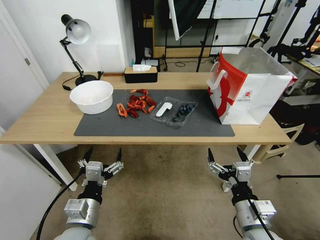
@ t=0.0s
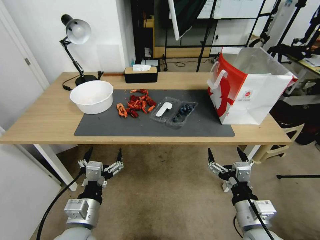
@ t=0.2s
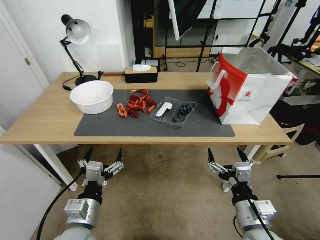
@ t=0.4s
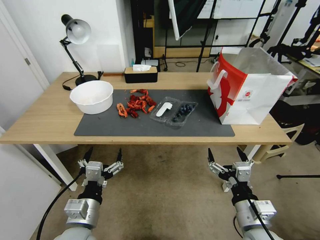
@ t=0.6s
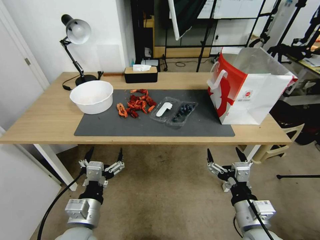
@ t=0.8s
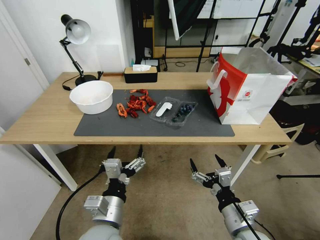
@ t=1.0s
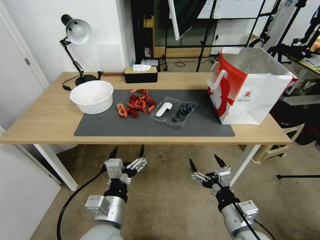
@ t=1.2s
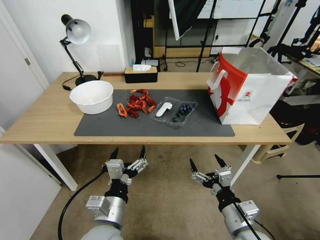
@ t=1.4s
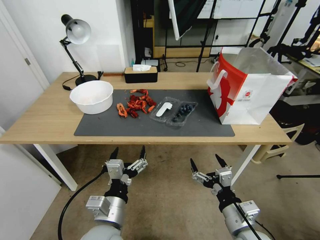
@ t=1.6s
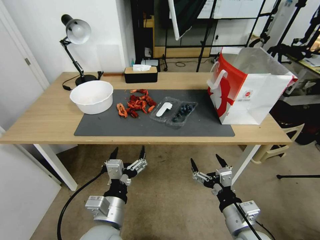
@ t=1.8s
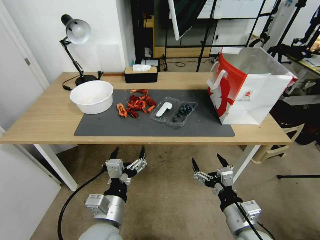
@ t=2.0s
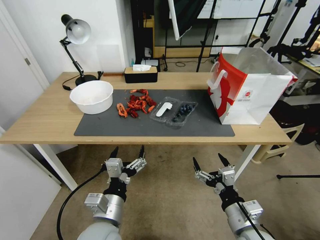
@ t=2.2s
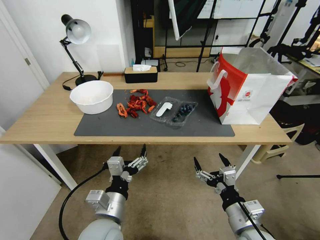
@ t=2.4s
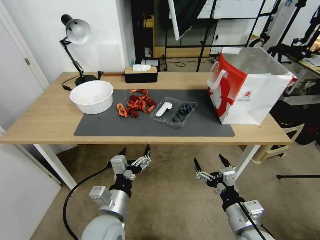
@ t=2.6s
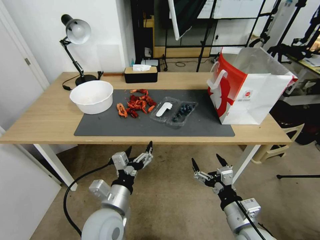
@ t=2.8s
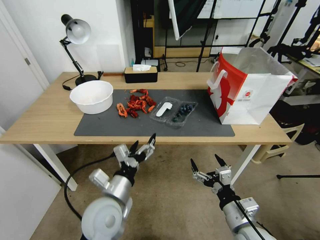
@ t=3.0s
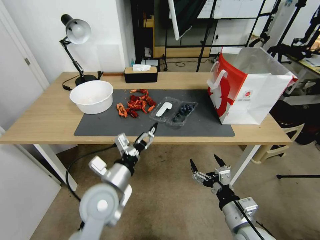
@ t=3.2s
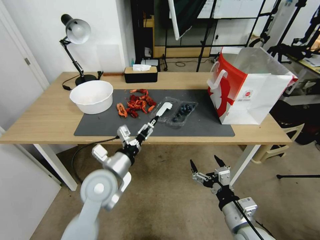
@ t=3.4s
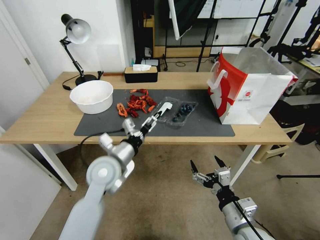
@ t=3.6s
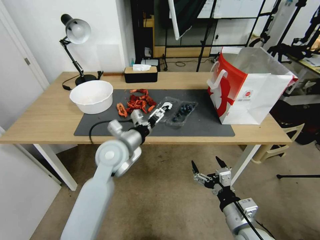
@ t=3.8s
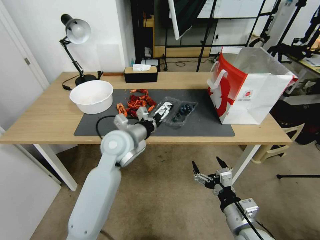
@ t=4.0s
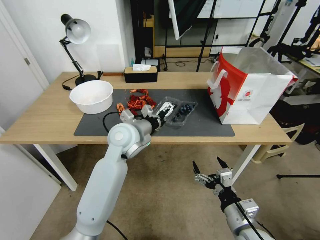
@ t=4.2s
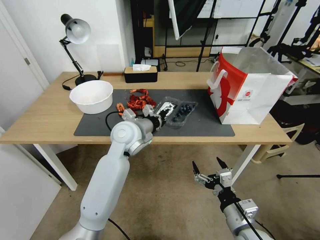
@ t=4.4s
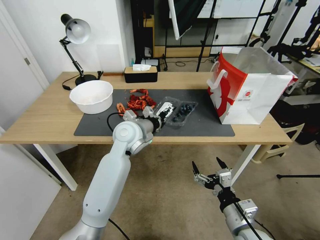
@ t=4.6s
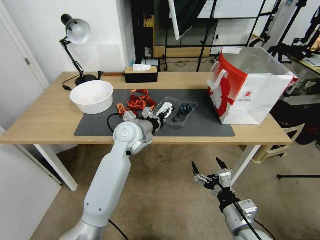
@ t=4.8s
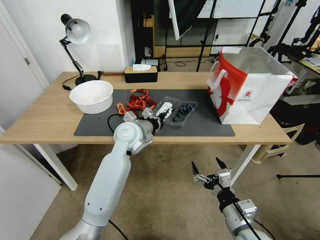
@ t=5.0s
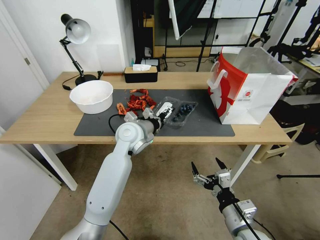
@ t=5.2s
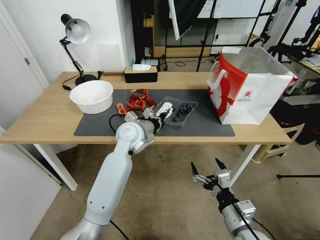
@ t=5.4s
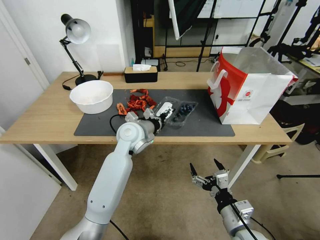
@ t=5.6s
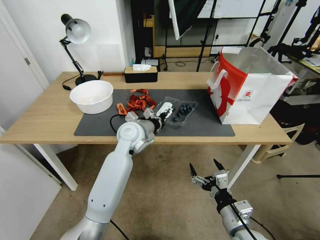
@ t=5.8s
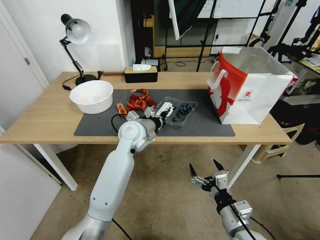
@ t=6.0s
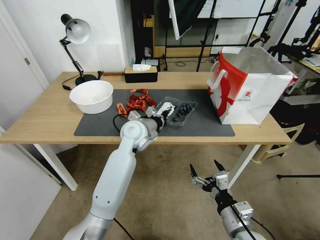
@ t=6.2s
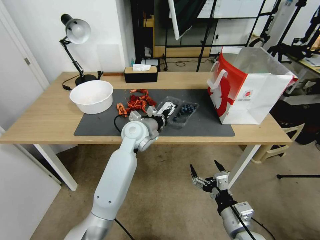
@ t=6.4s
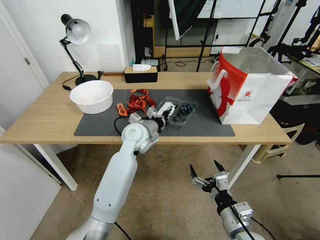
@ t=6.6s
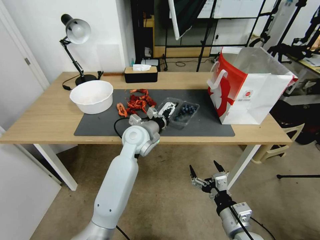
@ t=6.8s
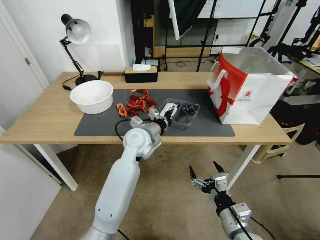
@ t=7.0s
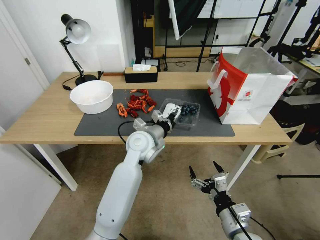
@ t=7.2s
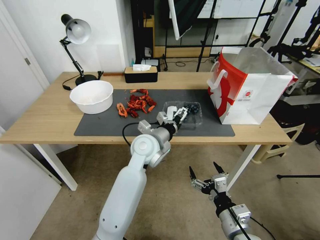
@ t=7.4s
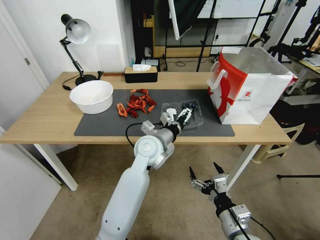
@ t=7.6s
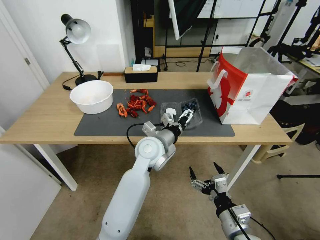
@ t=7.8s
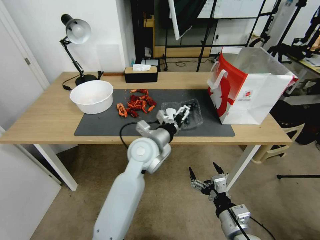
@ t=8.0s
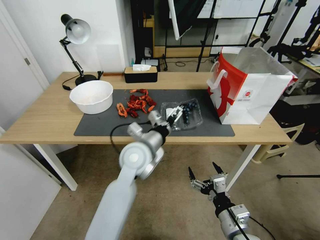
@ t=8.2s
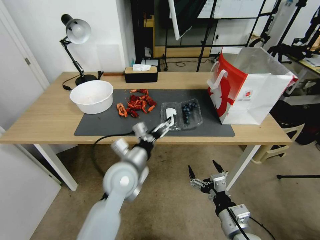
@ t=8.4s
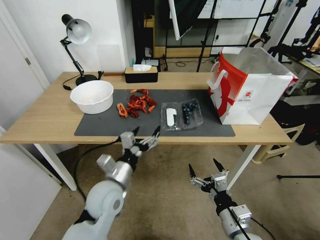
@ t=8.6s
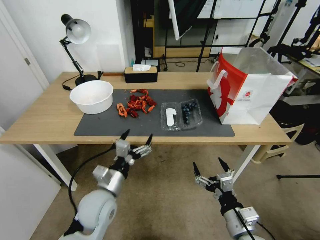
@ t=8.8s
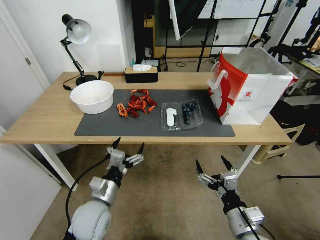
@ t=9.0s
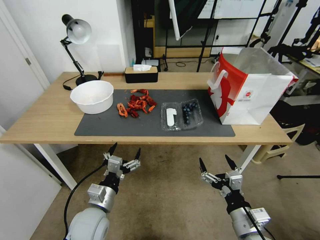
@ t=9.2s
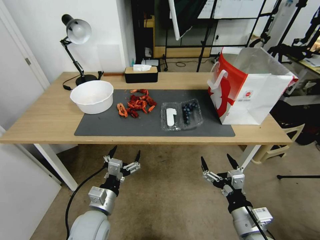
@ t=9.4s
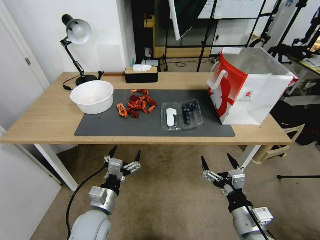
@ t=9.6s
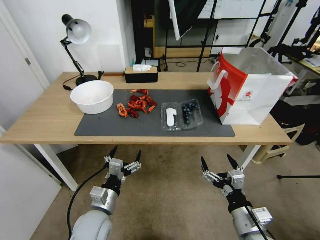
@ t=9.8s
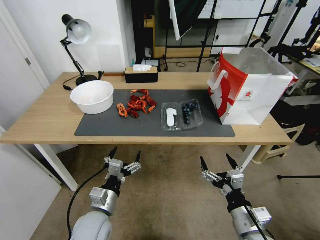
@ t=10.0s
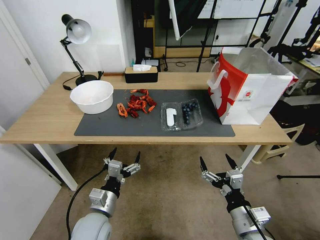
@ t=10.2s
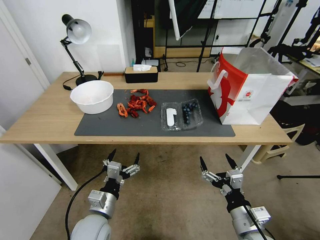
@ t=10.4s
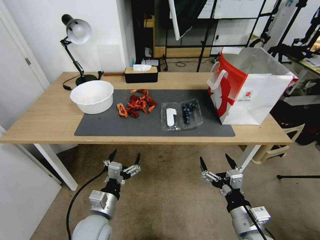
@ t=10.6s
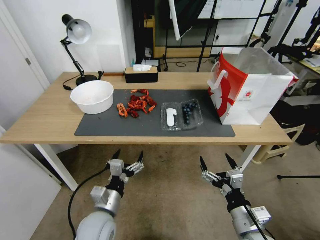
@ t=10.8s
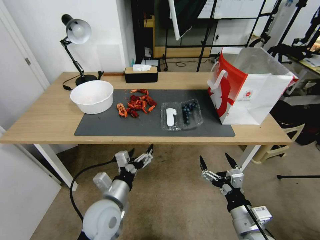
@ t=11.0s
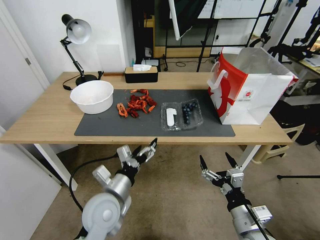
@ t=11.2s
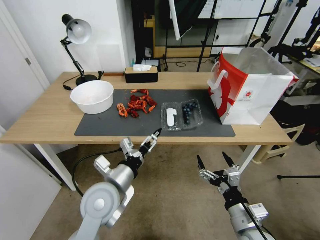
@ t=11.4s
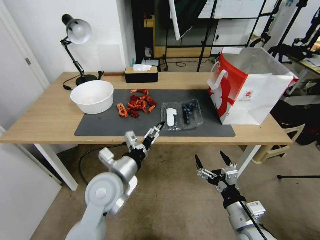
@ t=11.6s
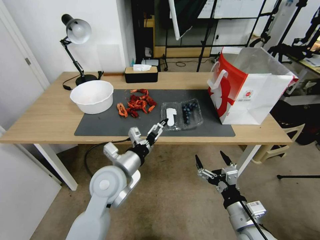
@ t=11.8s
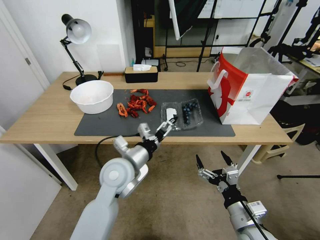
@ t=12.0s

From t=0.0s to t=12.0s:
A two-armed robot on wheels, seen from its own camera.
Task of the whole recording: Close the takeout container lid, then place the container into the takeout bag.
From t=1.6s to t=3.0s: The left gripper is displaced forward by roughly 5 cm.
From t=3.0s to t=4.4s: The left gripper travels forward by about 20 cm.
From t=4.4s to t=6.0s: There are only small adjustments of the grippers.
From t=6.0s to t=7.6s: The left gripper is displaced to the right and backward by approximately 10 cm.
From t=7.6s to t=9.0s: The left gripper goes some 25 cm backward, to the left and downward.
From t=9.0s to t=10.4s: The grippers stay close to where they were, moving slightly.
From t=10.4s to t=12.0s: The left gripper travels upward, forward and to the right by about 20 cm.

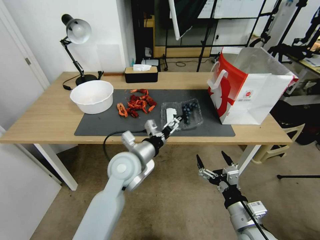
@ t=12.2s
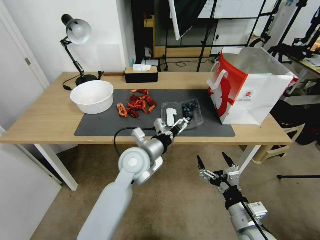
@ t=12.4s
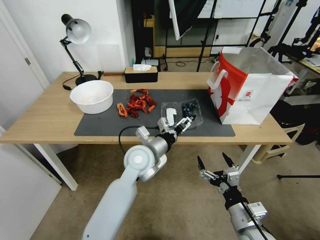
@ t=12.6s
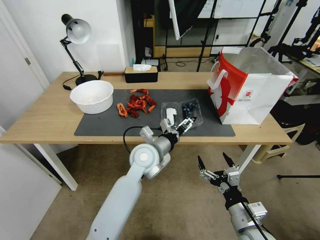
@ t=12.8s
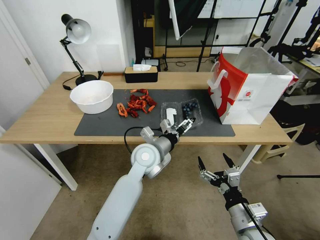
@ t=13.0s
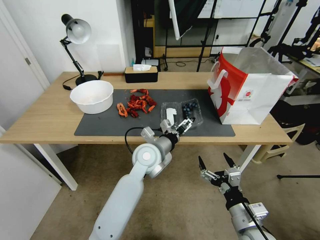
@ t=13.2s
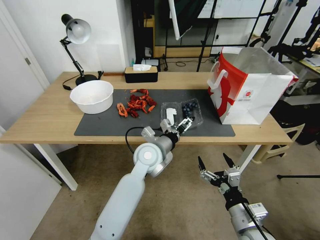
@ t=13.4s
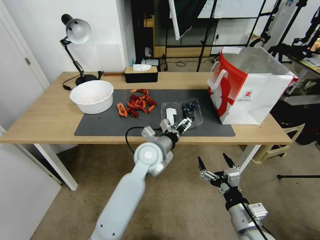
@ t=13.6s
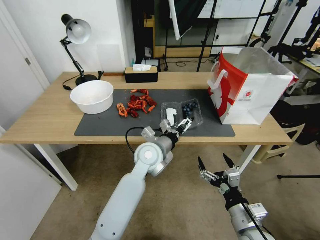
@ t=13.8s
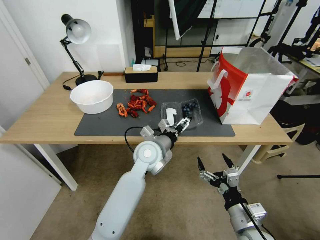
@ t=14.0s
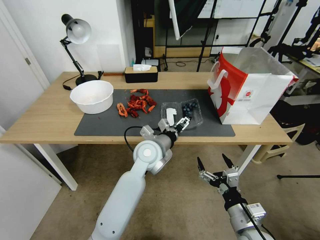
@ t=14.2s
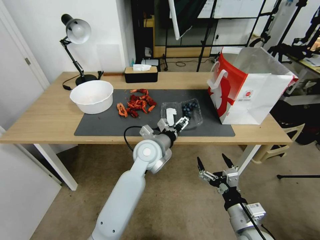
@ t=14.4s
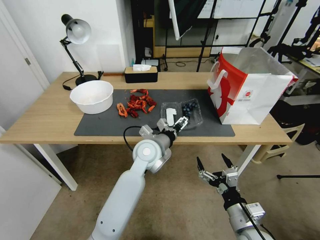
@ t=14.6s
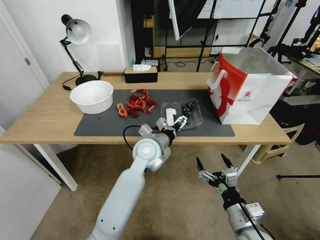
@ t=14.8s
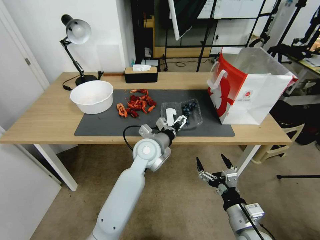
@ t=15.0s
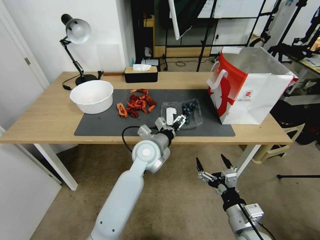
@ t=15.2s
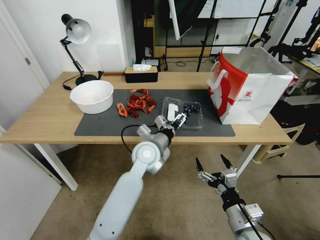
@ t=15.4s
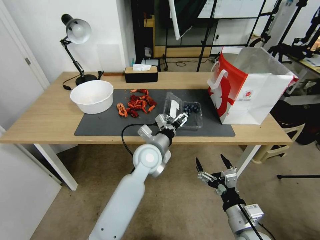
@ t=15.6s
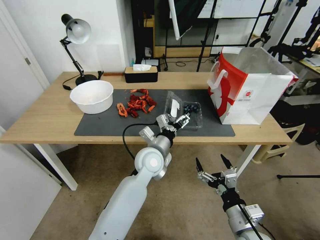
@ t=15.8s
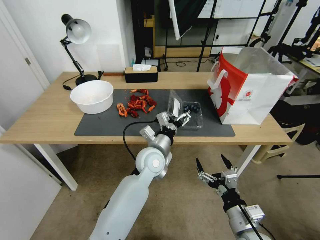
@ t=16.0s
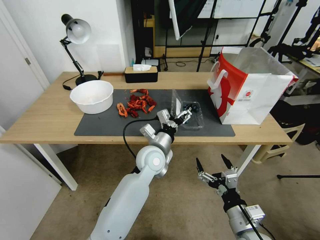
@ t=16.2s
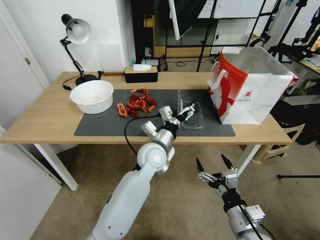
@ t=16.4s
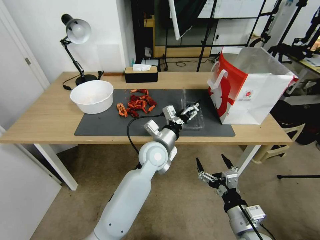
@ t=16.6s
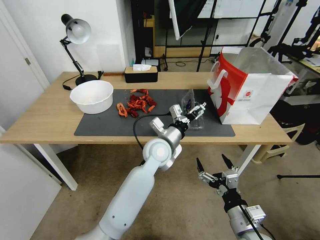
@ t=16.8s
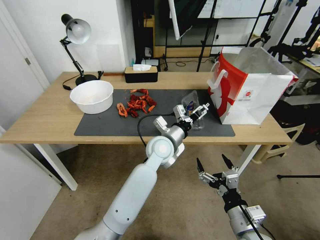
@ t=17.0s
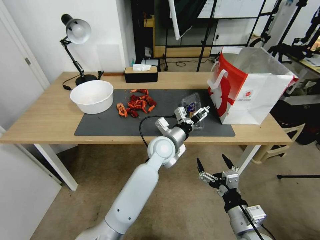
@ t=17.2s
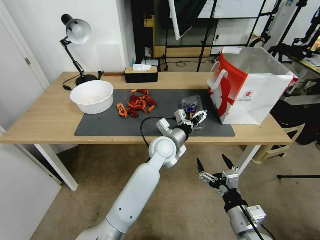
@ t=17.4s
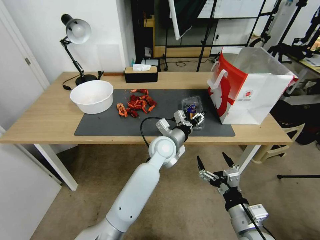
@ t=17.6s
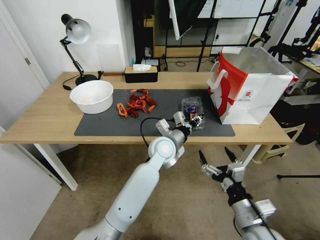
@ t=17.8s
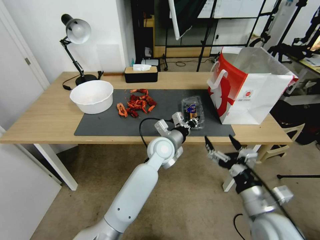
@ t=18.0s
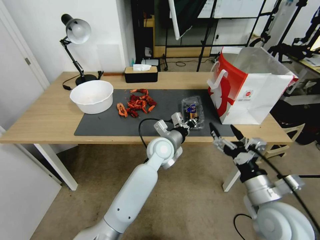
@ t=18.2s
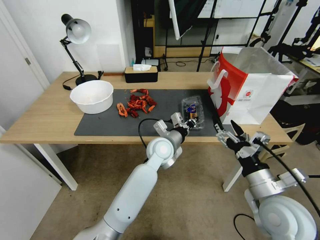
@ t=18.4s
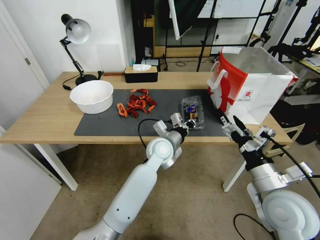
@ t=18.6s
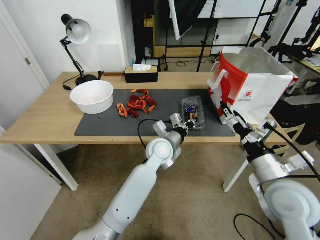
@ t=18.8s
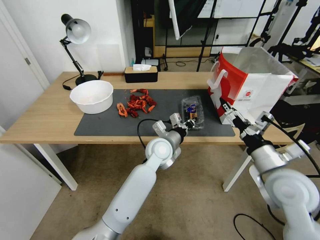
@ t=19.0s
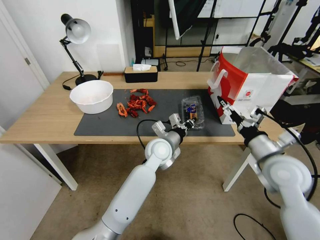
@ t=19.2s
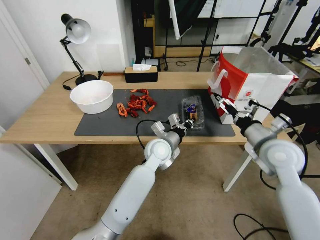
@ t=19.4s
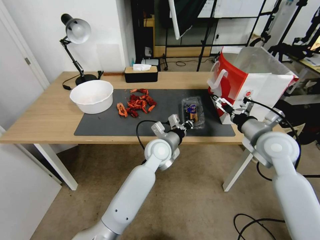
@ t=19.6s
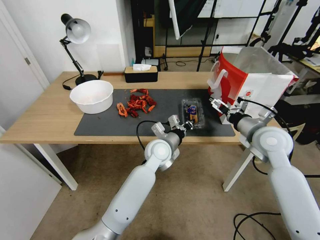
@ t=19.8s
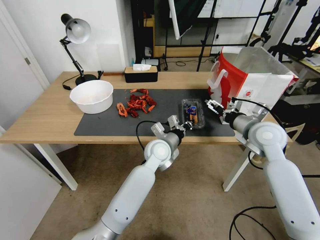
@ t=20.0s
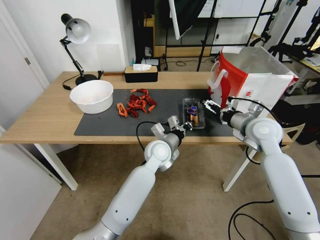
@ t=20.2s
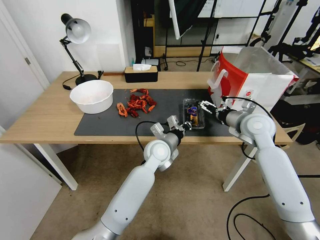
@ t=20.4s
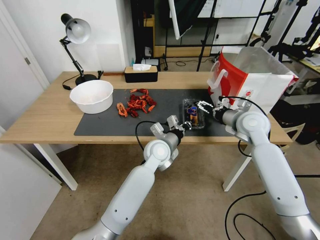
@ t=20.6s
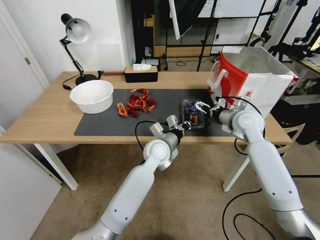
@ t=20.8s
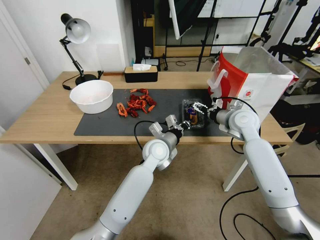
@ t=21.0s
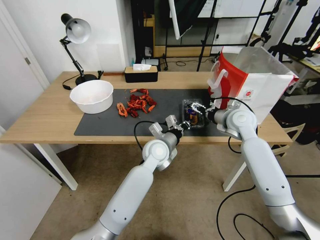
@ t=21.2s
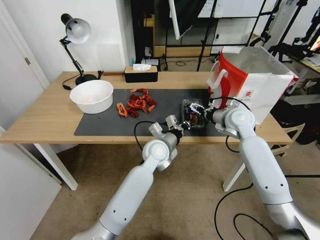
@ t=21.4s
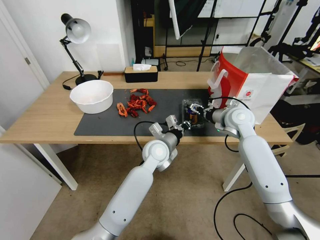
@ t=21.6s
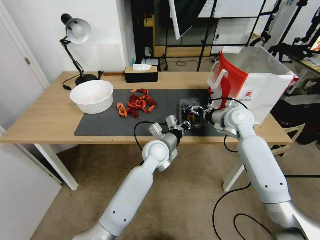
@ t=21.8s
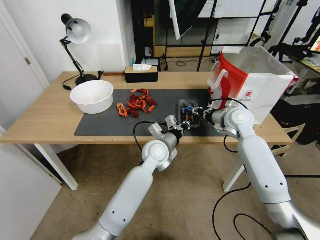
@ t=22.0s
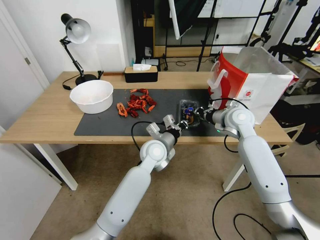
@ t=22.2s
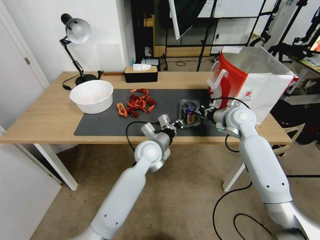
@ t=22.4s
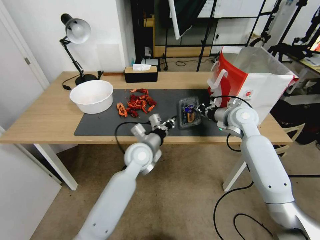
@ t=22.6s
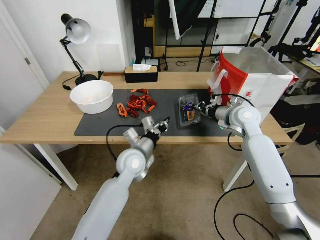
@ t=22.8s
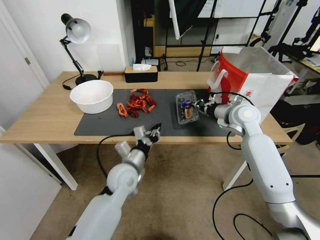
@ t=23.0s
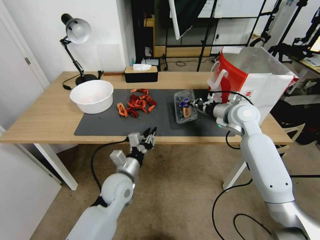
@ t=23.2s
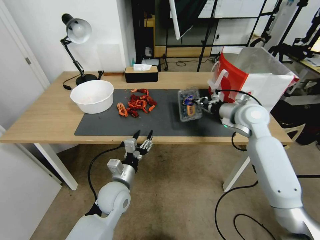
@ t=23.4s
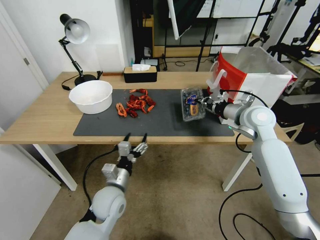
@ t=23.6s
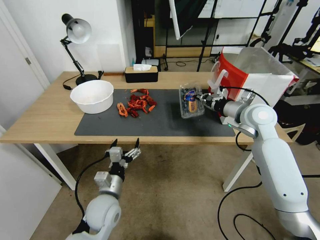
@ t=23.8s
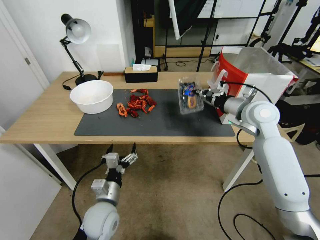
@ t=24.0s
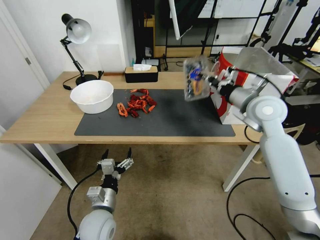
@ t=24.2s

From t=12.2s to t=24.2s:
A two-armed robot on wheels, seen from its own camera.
Task of the whole recording: Close the takeout container lid, then place the container into the takeout bag.
From t=12.2s to t=13.8s: The left gripper travels to the right and forward by roughly 10 cm.
From t=13.8s to t=15.2s: Neither gripper changes place.
From t=16.6s to t=18.2s: The right gripper shifts about 10 cm upward. The left gripper closes up.
From t=18.2s to t=19.8s: The right gripper shifts approximately 20 cm forward.
From t=19.8s to t=21.2s: The right gripper shifts approximately 10 cm forward.
From t=21.2s to t=22.6s: The left gripper shifts approximately 5 cm to the left; the right gripper closes up.
From t=22.6s to t=24.2s: The right gripper heads upward, covering about 10 cm, while the left gripper travels backward, to the left and downward by some 25 cm, and opens.
